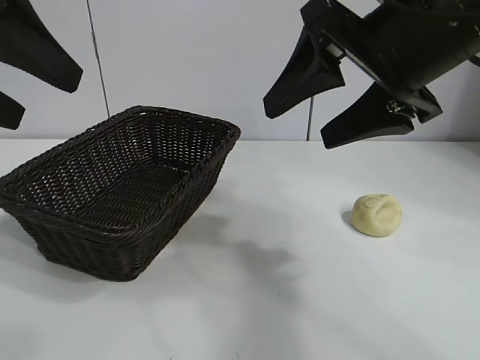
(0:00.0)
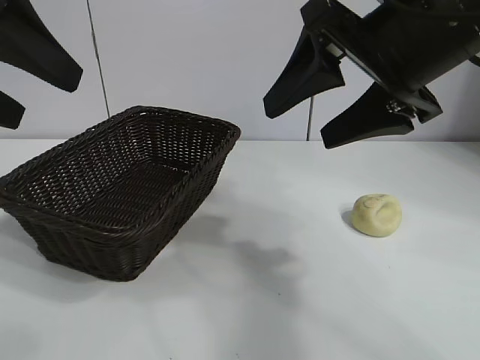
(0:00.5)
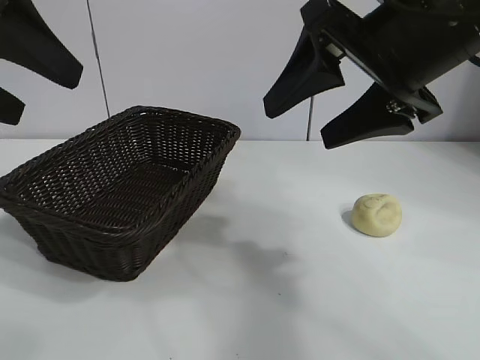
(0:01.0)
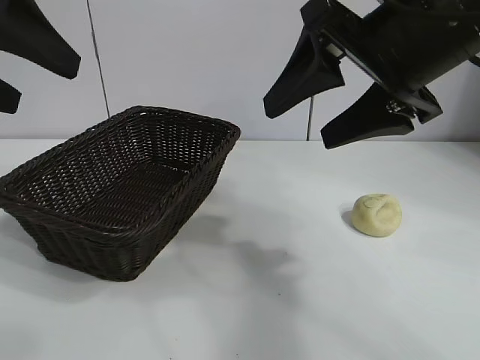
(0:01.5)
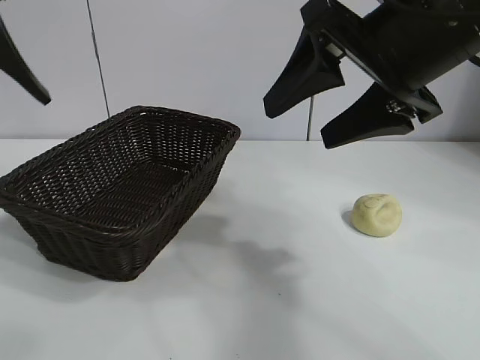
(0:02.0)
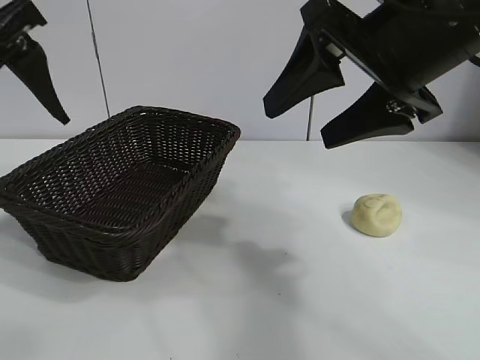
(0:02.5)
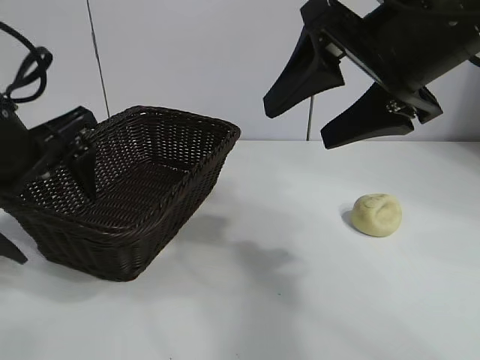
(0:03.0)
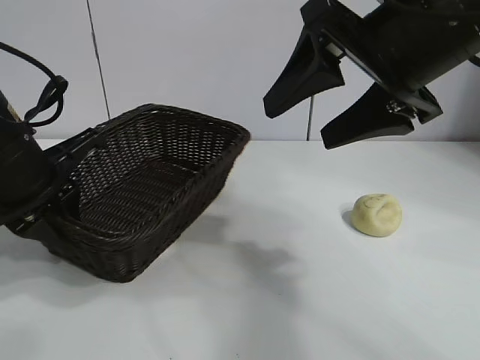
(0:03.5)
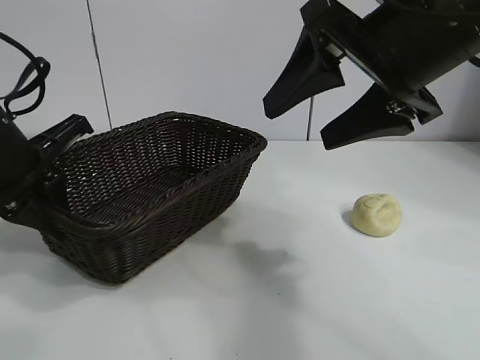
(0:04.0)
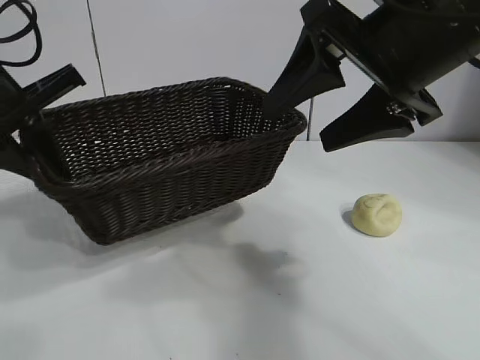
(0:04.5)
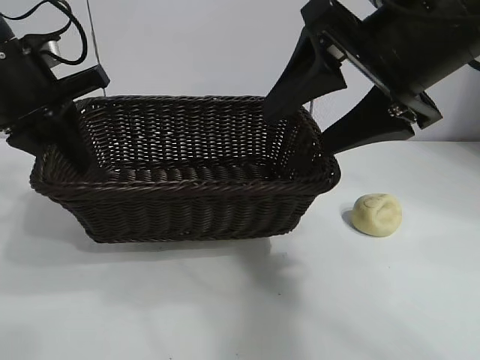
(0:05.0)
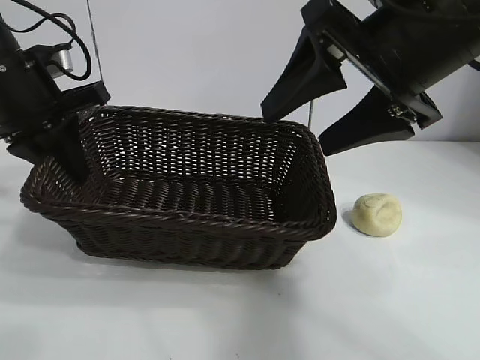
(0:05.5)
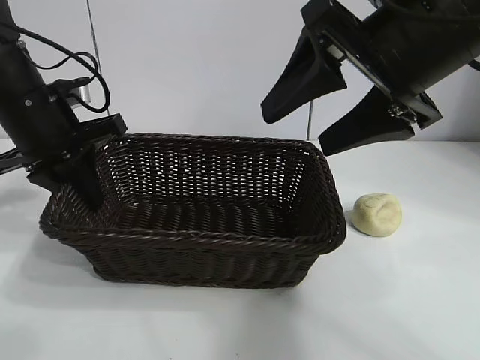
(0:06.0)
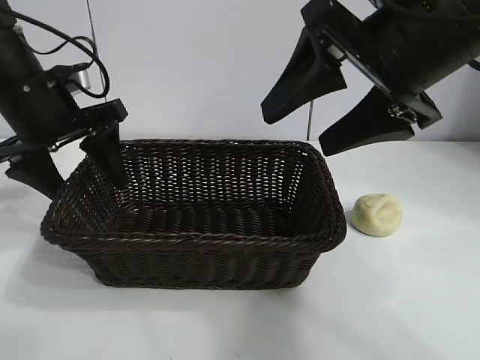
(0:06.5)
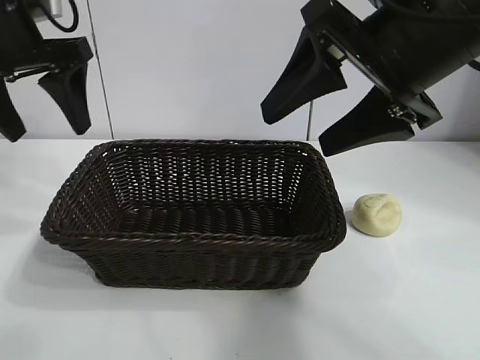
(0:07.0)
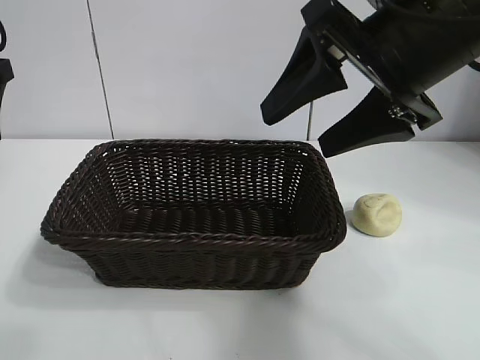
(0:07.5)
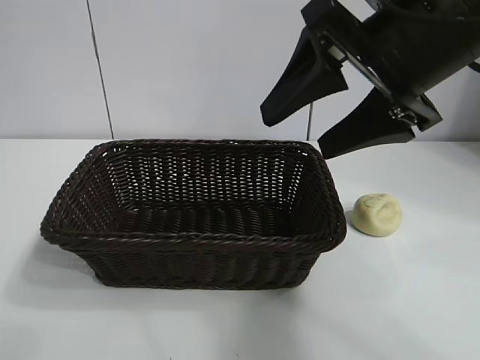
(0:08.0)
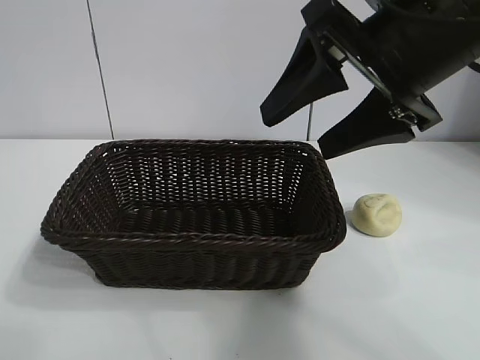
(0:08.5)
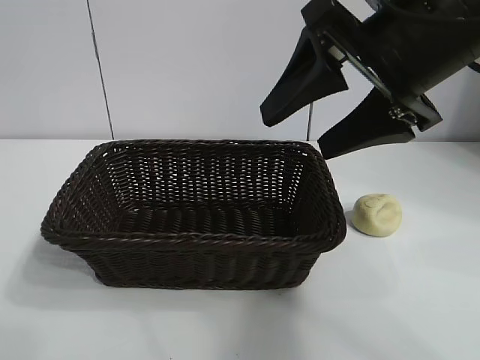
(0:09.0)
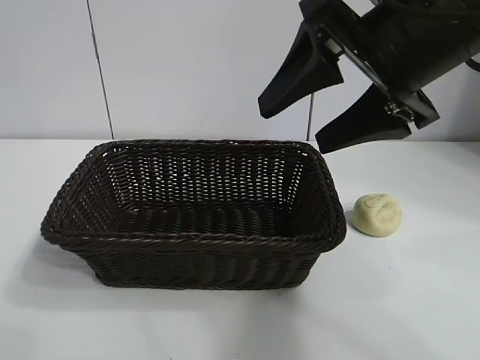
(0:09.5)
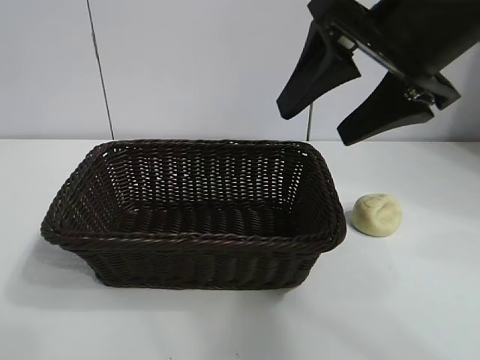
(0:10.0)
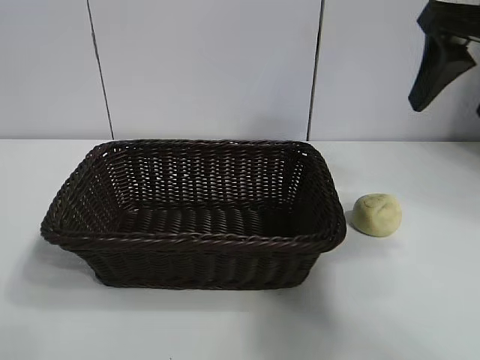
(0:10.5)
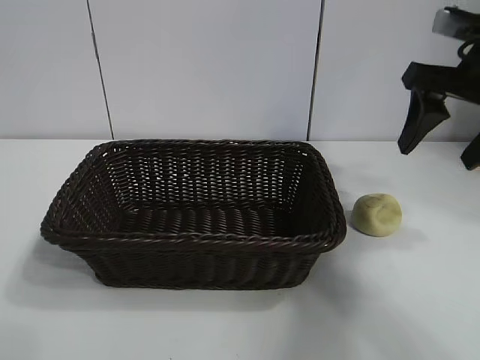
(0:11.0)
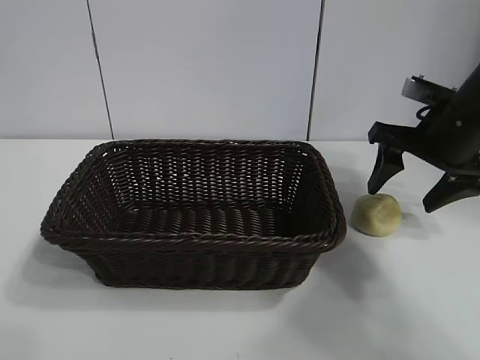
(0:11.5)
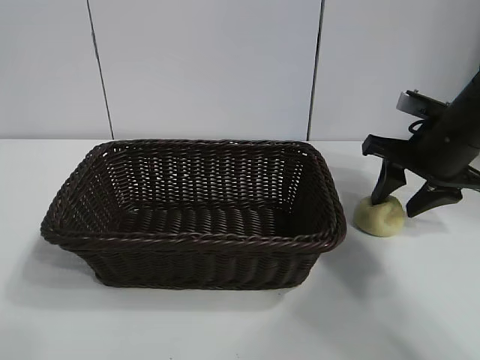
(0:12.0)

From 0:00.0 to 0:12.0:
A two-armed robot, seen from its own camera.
Task of the whole recording: pick up the egg yolk pastry and put it into the basket.
Step, from 0:01.0 to 0:03.5: Grasp the basket with left gripper.
Step, from 0:04.0 to 0:06.5: Place the basket in the center of view with left gripper.

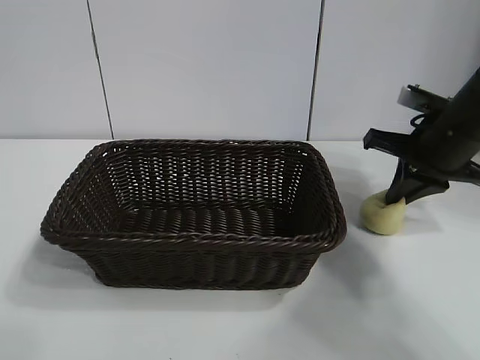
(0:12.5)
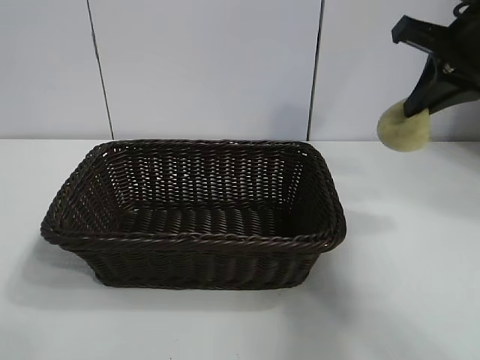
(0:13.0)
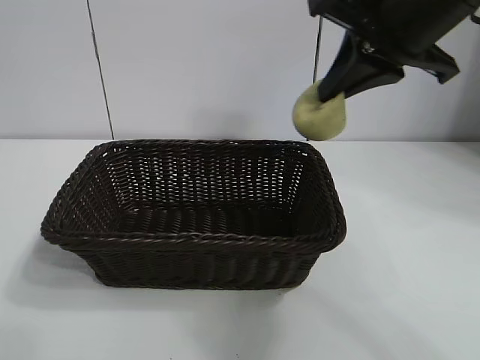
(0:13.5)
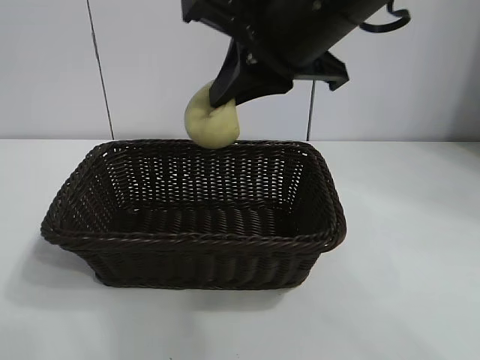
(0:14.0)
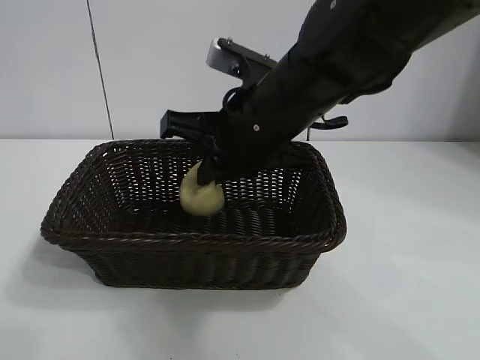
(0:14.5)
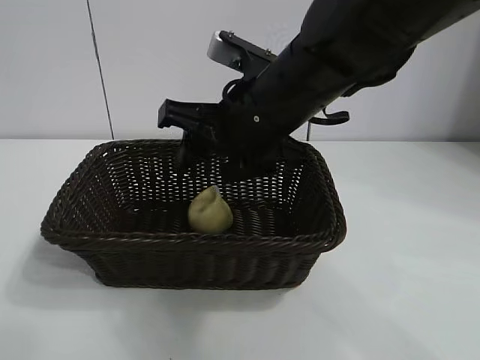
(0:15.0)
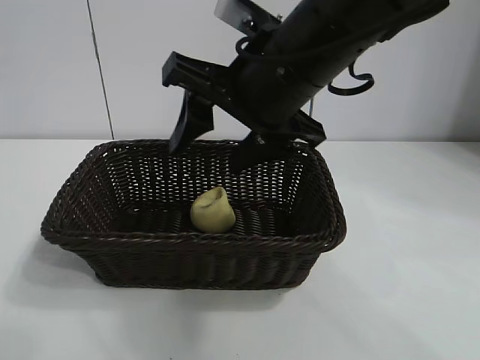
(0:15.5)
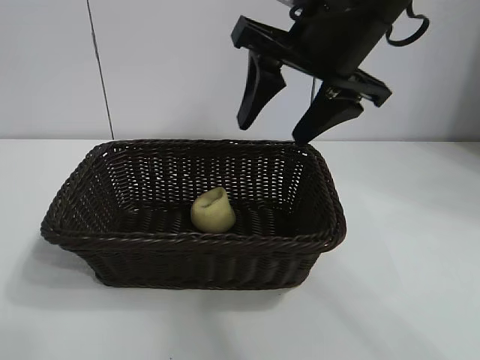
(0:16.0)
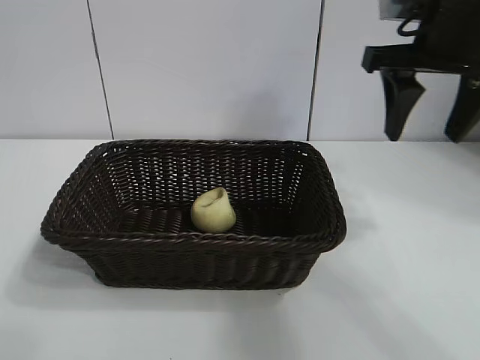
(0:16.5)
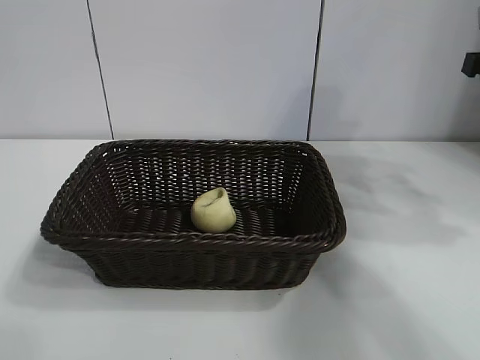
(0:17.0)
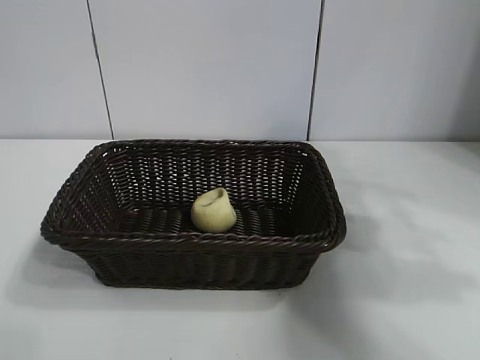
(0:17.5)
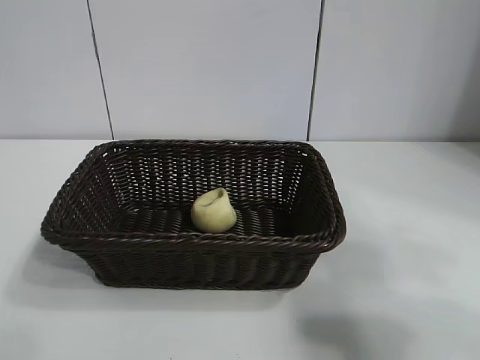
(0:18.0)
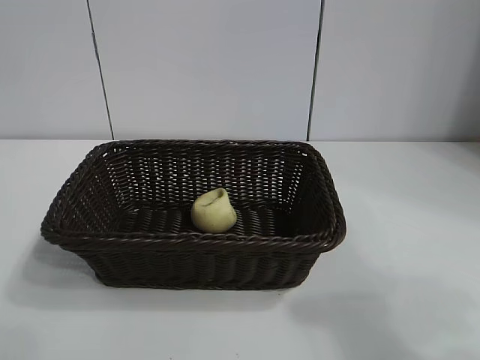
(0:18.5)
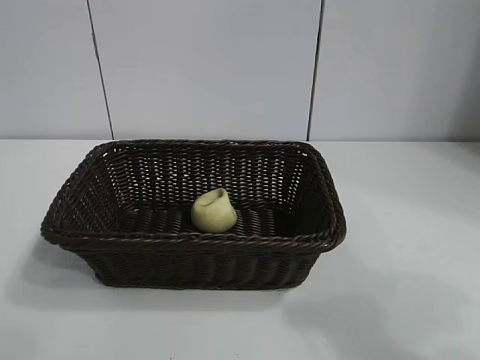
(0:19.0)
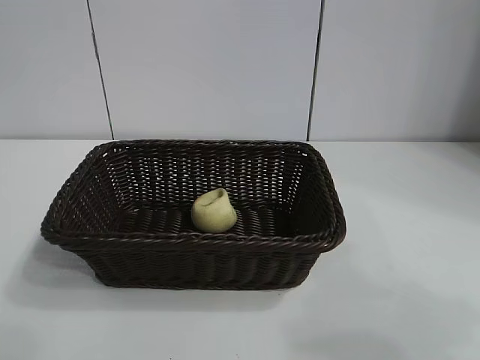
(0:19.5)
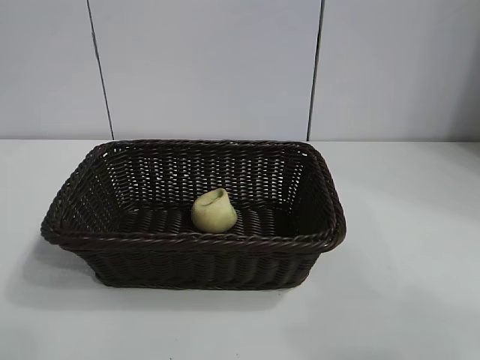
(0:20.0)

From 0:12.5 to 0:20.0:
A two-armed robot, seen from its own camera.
Task of the whole recording: pick up the egg yolk pastry and put it into the basket.
Step, from 0:12.5 to 0:14.5: Place the egg yolk pastry in the basket with right gripper.

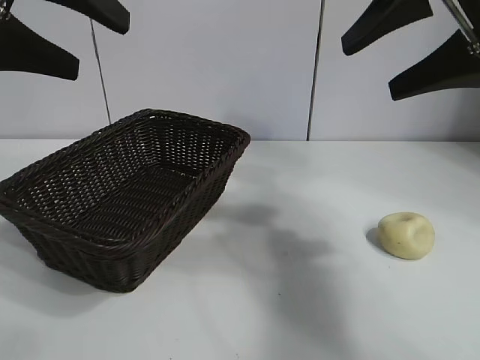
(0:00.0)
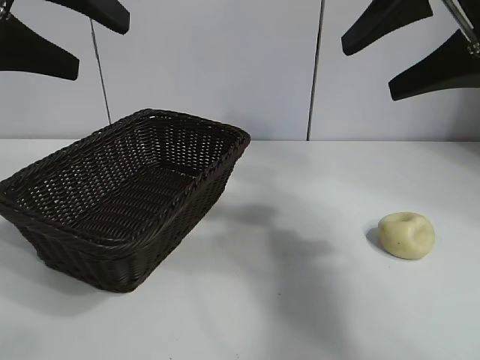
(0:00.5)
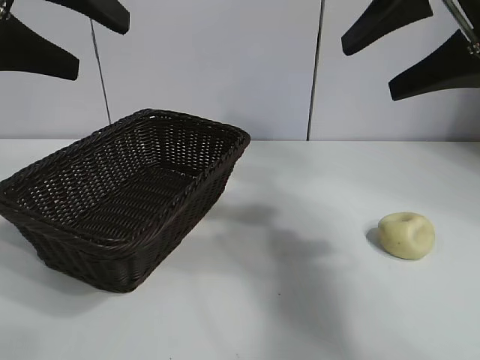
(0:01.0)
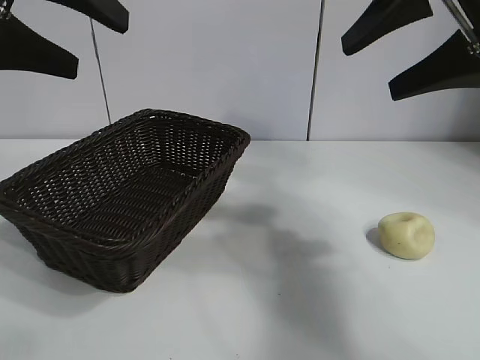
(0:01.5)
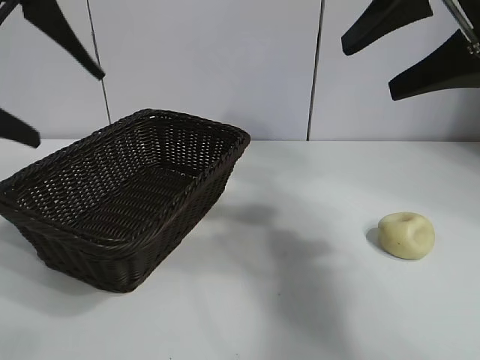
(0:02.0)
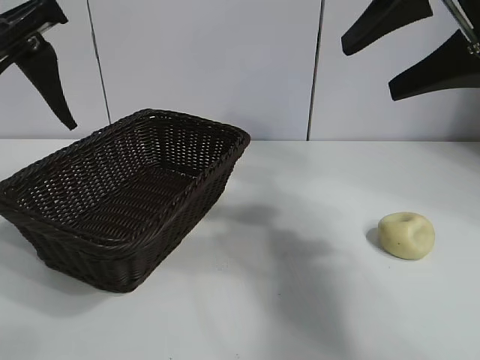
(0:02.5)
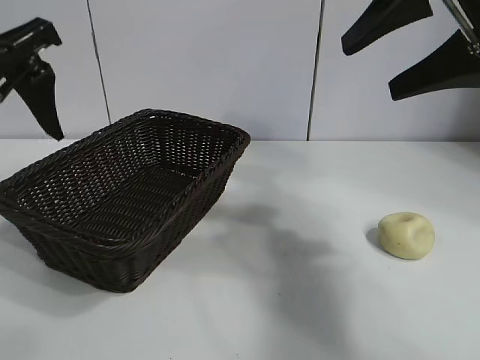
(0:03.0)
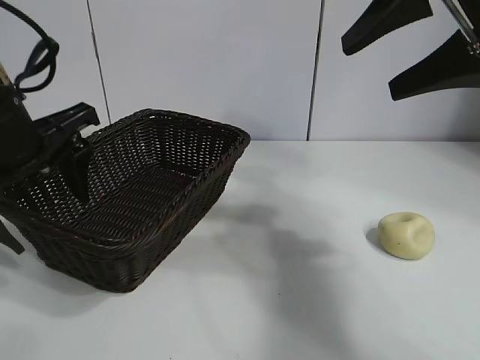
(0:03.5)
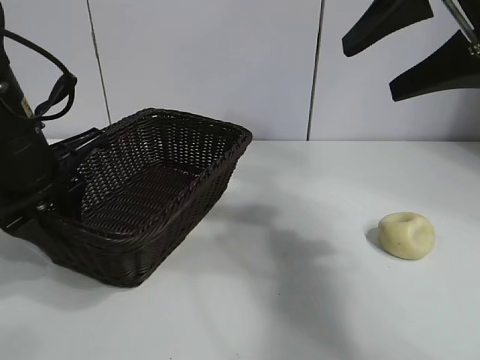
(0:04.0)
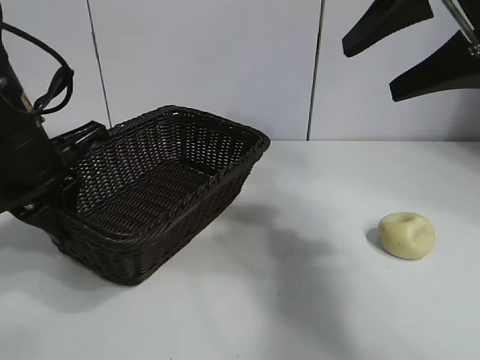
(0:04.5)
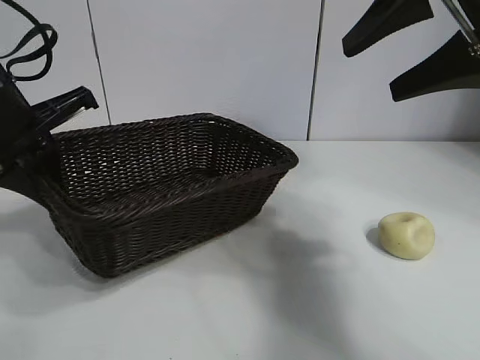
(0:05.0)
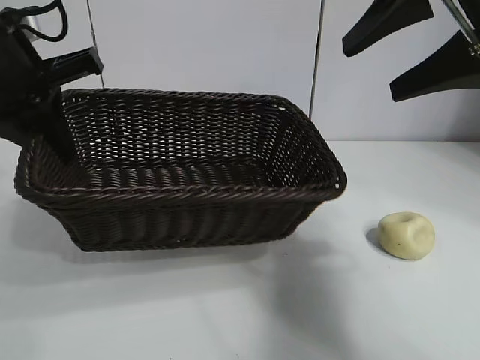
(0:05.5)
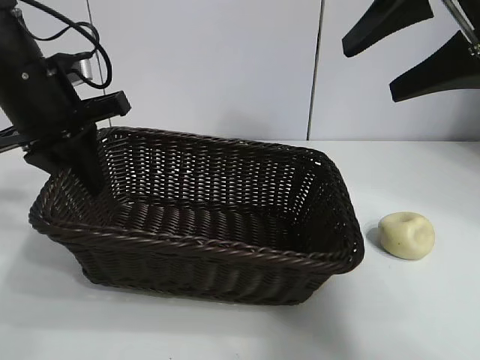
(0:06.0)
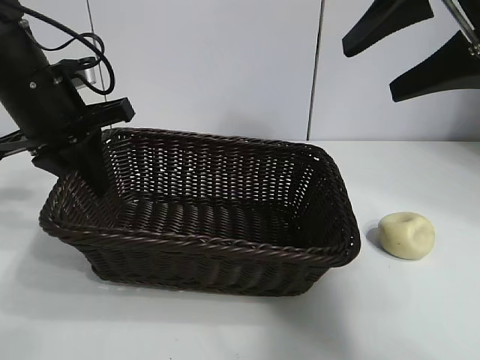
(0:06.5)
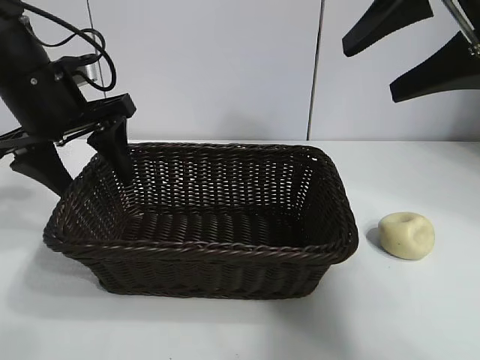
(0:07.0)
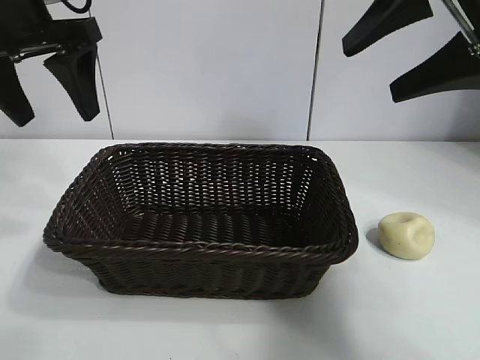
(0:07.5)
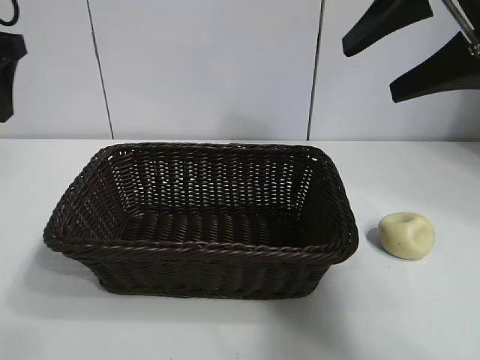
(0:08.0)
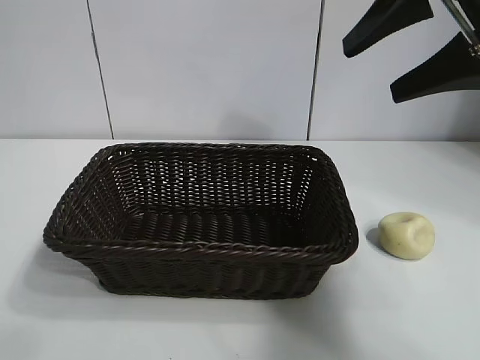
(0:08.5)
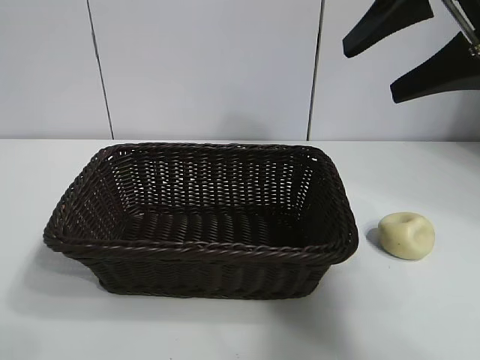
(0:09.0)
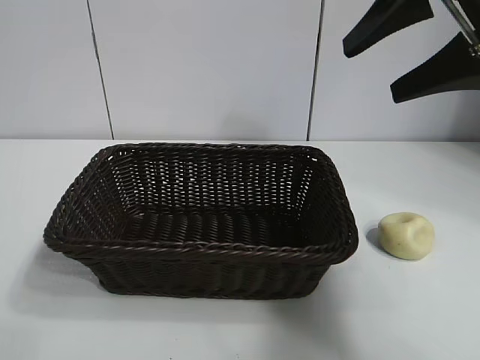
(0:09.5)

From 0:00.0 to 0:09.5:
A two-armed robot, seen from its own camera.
Task of the whole recording: pick up the egg yolk pastry and put it into the basket.
Step, from 0:02.0 to 0:04.0: Grasp the basket with left gripper.
Step, from 0:04.5 to 0:07.0: Place the basket in the center of view with left gripper.
